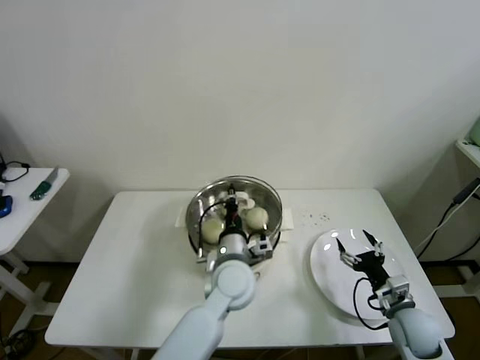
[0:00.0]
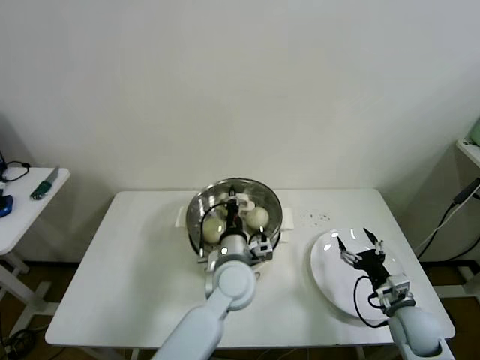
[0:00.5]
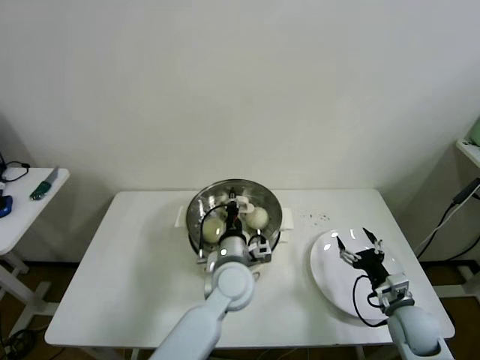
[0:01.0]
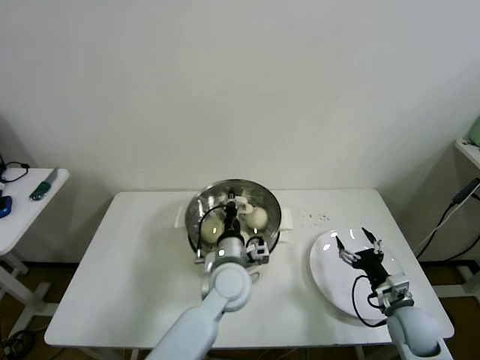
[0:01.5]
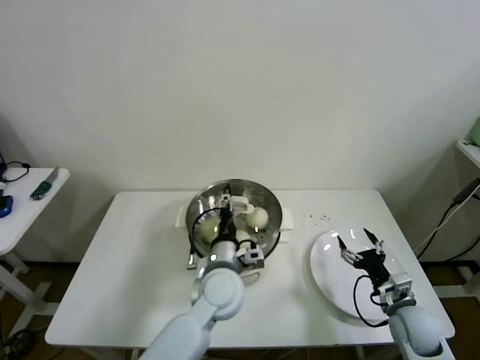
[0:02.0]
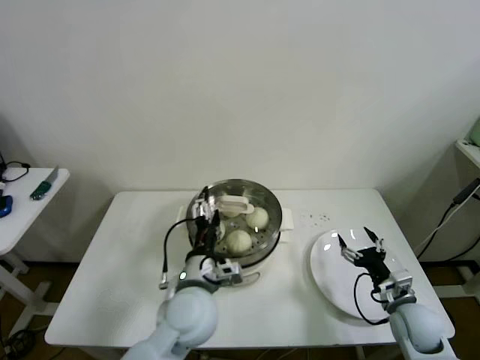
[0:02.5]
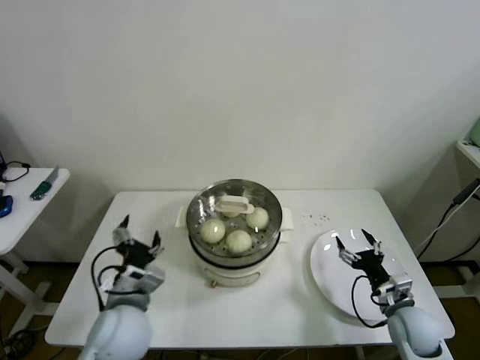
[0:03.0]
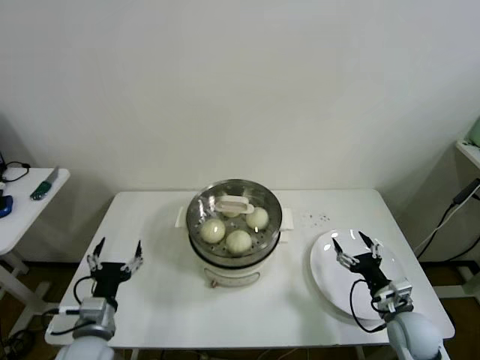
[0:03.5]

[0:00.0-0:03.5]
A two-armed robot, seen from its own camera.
Step, 0:00.0 to 0:02.0: Place the pot lid on the steamer with left gripper.
0:00.0 to 0:02.0: The left gripper opens up.
0:02.0 to 0:03.5: The left gripper moves to the left and backward, roughly 30 cm, and opens.

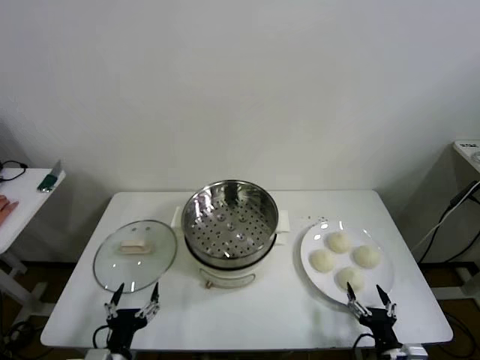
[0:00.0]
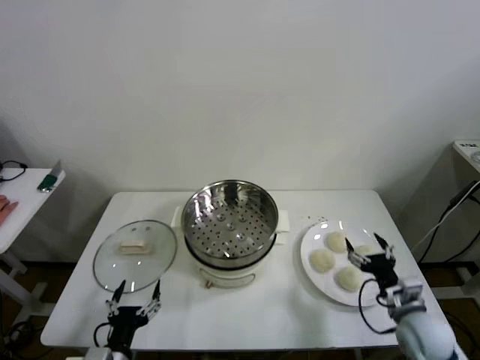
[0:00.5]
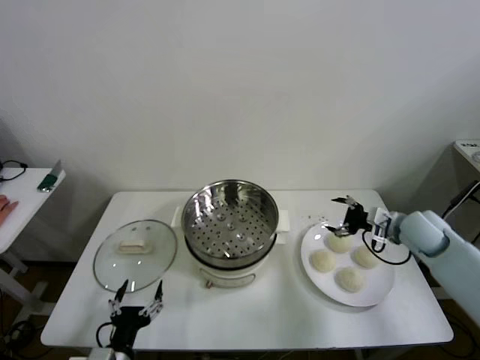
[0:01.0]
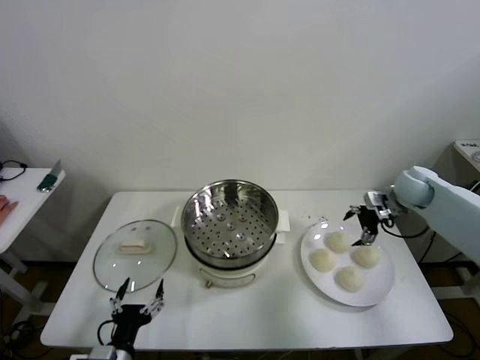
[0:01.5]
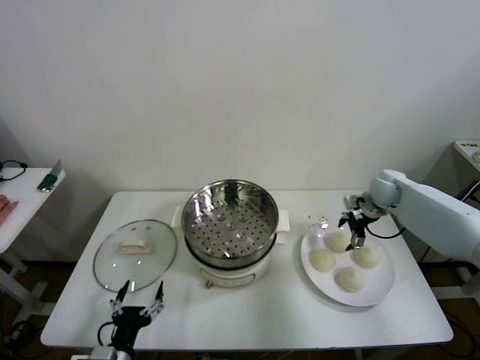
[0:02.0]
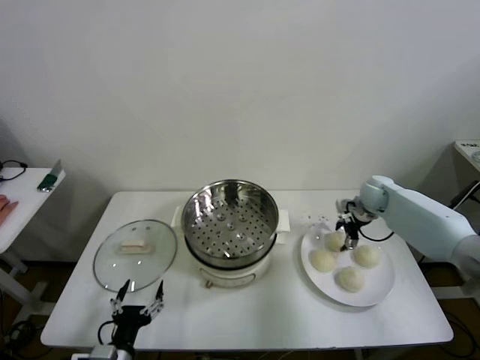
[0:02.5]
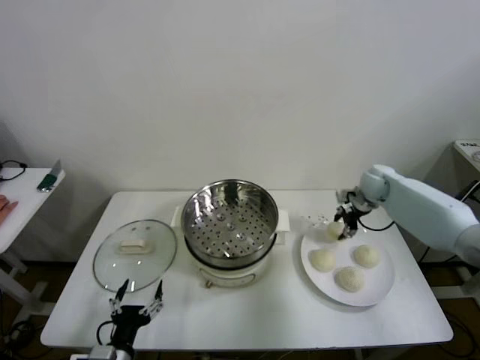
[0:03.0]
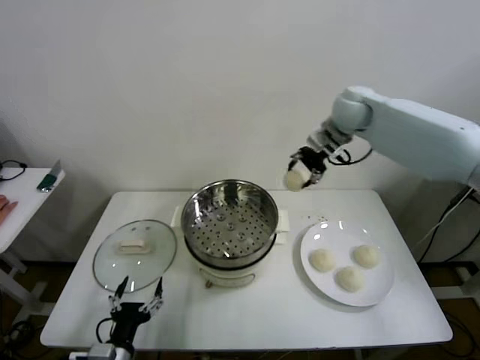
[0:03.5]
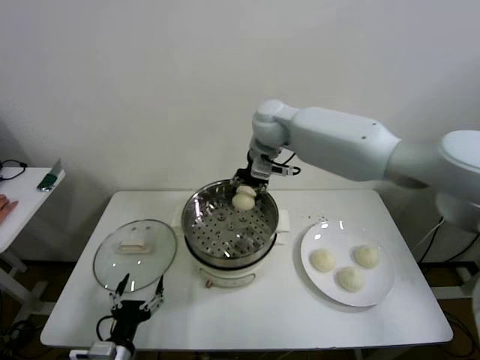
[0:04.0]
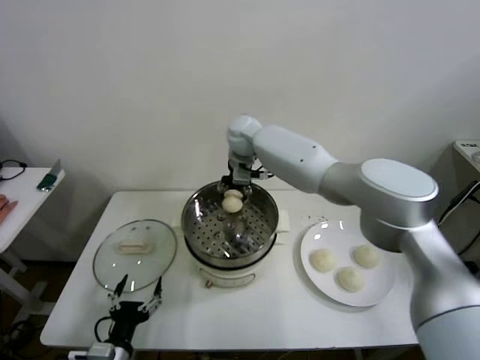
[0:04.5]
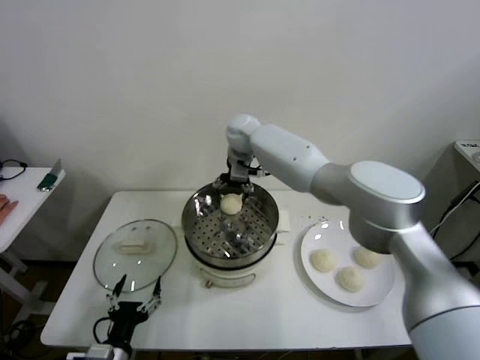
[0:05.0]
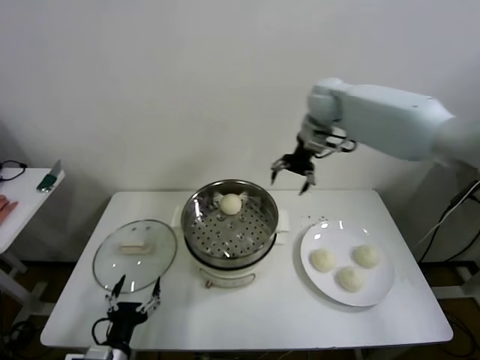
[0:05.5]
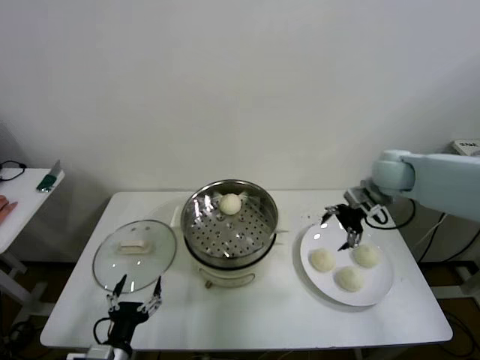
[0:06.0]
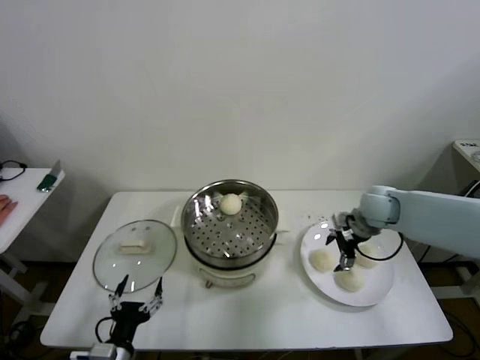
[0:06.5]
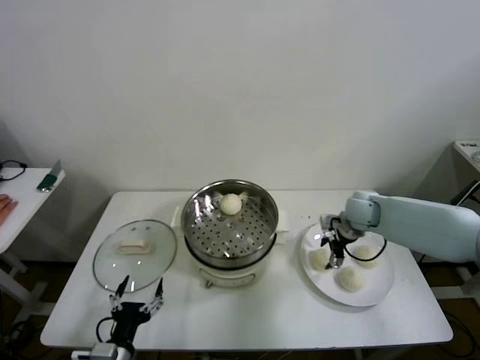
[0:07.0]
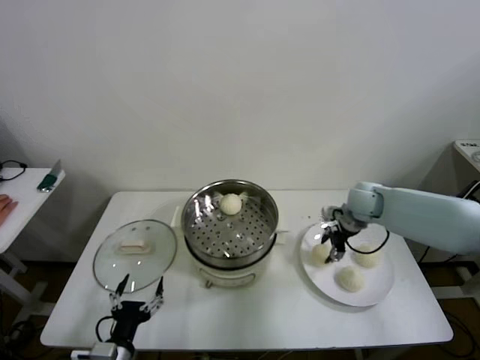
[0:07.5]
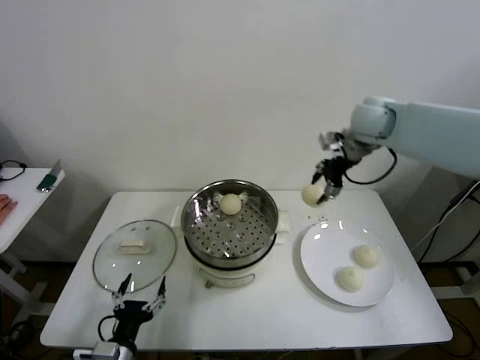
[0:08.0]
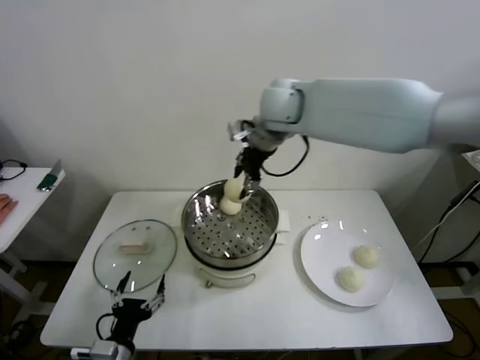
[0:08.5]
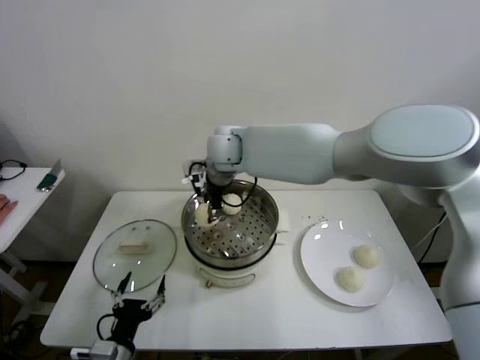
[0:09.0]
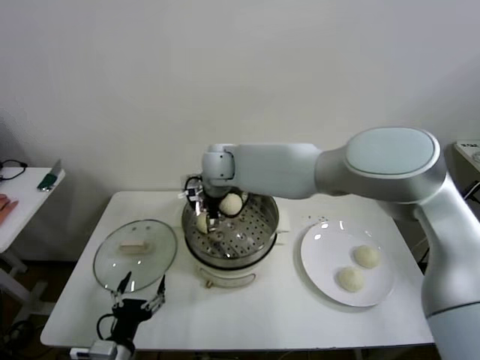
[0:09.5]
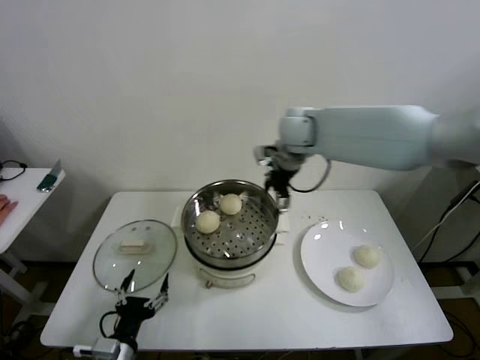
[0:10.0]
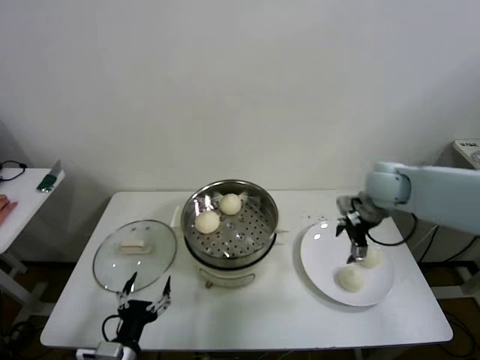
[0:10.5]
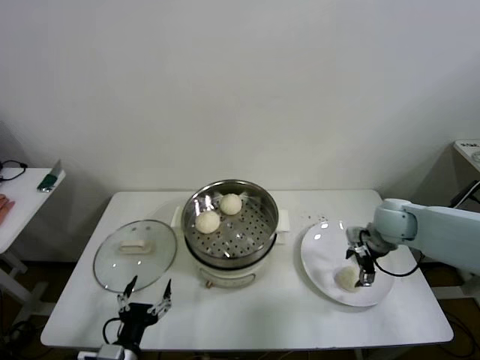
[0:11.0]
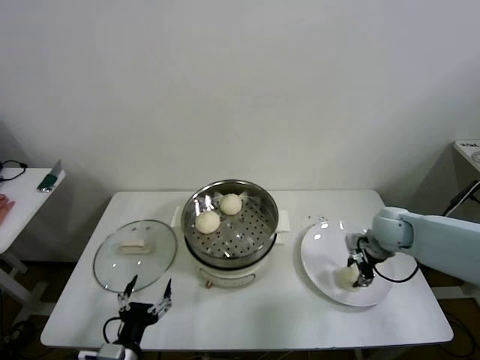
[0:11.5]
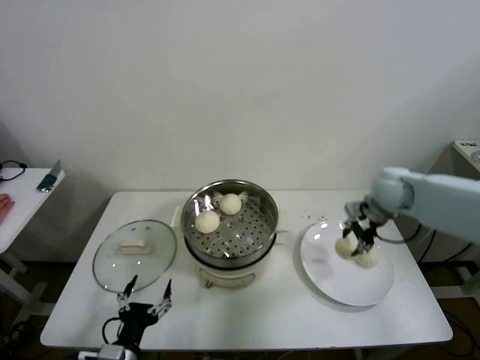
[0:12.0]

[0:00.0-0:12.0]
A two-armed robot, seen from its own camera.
Step, 0:00.0 to 0:02.5: Grasp the baozi in the plate with right gripper.
Step, 0:03.0 to 0:04.5: Place the baozi on the steamer with right gripper.
Step, 0:05.0 to 0:07.0: Grasp the baozi in the plate with right gripper.
Step, 0:07.5 to 0:09.5: Place the baozi on the steamer with right gripper.
Step, 0:10.0 to 0:11.5: Grasp the baozi in the plate with right gripper.
0:02.0 to 0:04.0: The right gripper heads to the left and upward, covering some 40 cm, and closes.
0:04.0 to 0:06.0: The right gripper travels to the right by roughly 30 cm, and opens.
0:06.0 to 0:08.0: The right gripper shifts some 20 cm upward, to the left and forward, and closes up.
0:08.0 to 0:10.0: The right gripper travels downward by approximately 5 cm, moves some 30 cm to the left and comes back, and opens up.
0:10.0 to 0:12.0: The right gripper travels to the right and downward by approximately 20 cm, and closes.

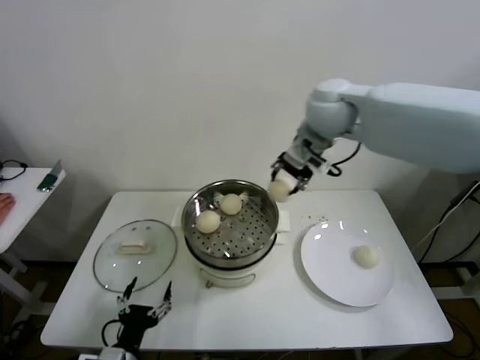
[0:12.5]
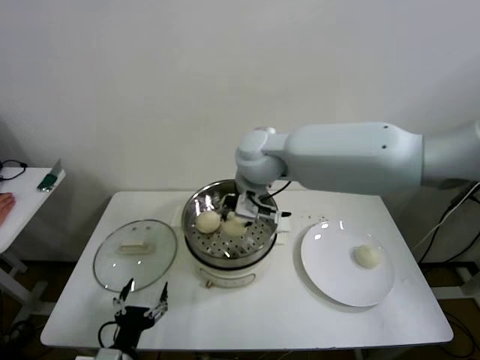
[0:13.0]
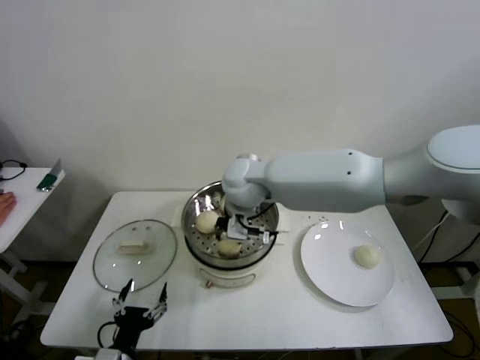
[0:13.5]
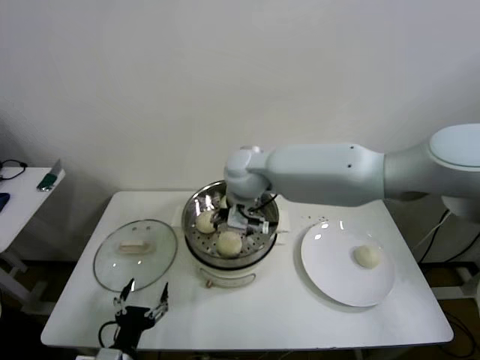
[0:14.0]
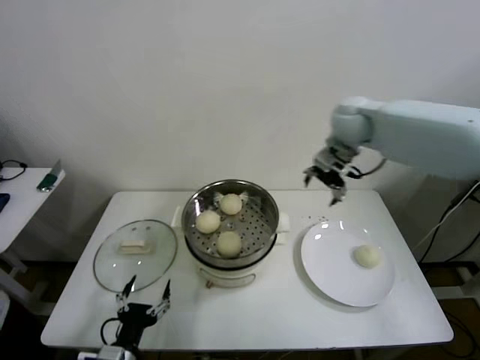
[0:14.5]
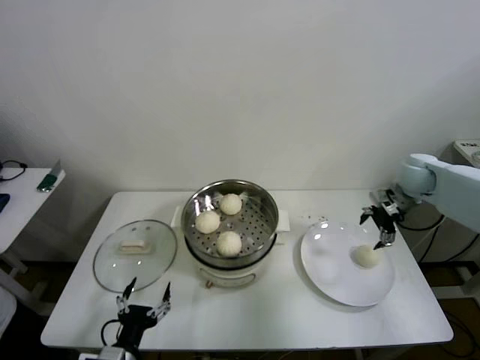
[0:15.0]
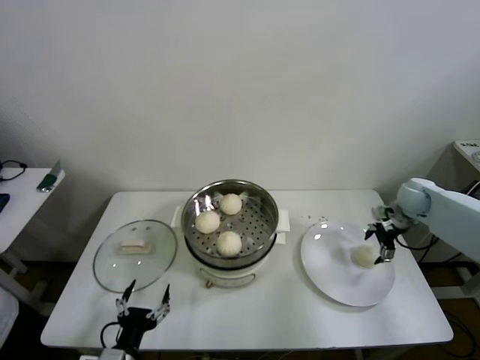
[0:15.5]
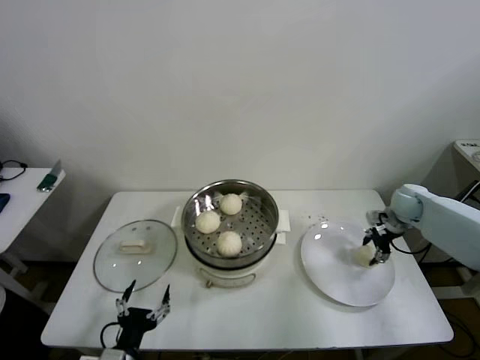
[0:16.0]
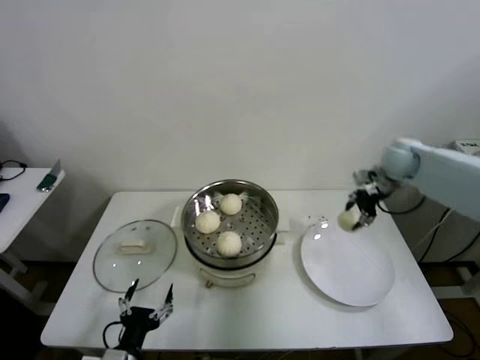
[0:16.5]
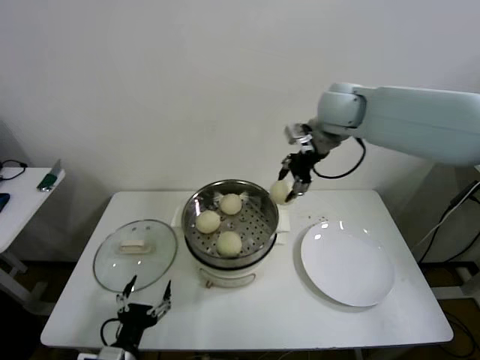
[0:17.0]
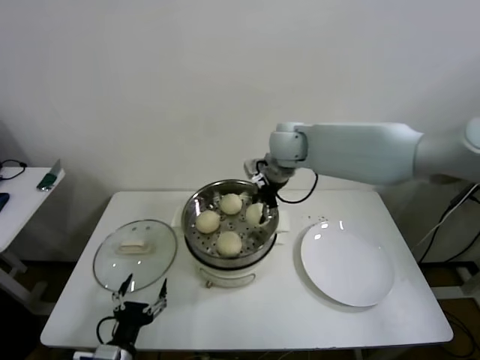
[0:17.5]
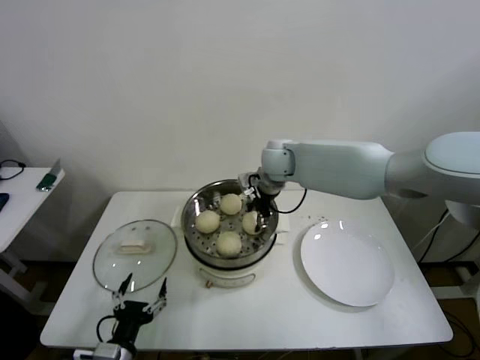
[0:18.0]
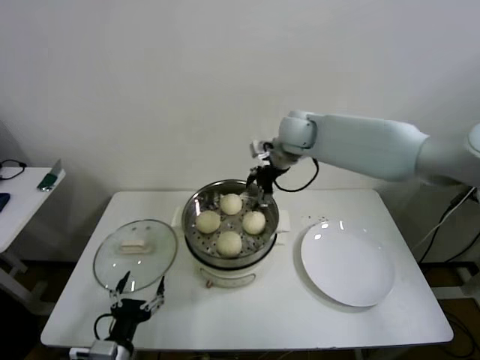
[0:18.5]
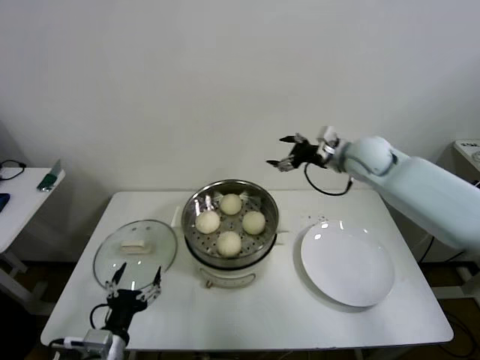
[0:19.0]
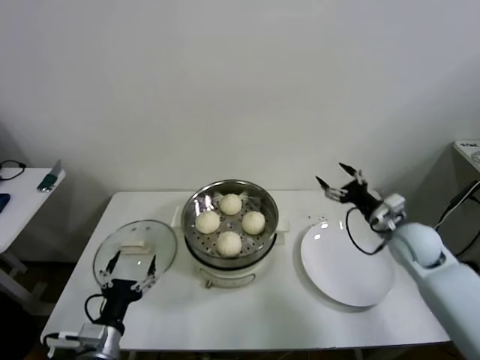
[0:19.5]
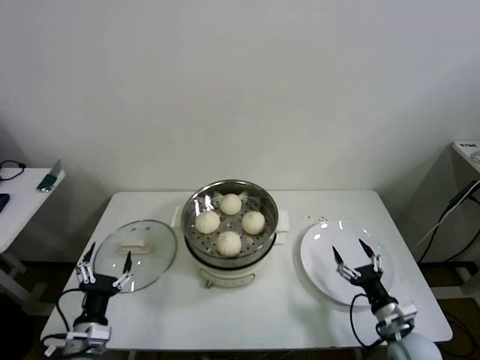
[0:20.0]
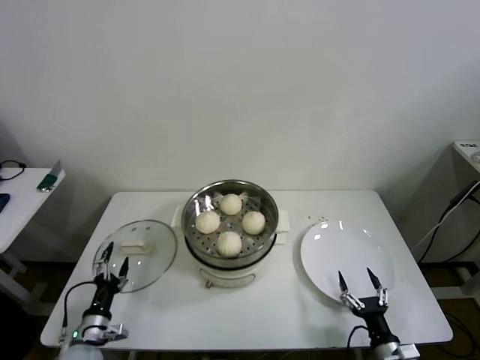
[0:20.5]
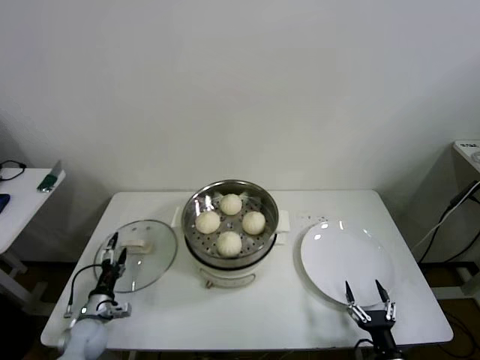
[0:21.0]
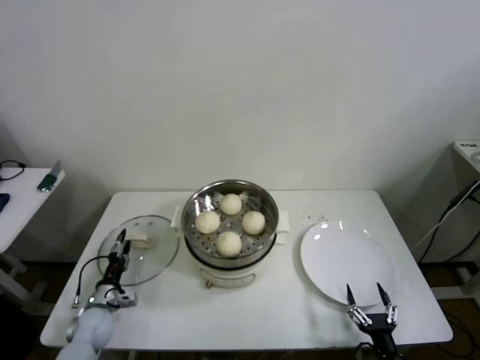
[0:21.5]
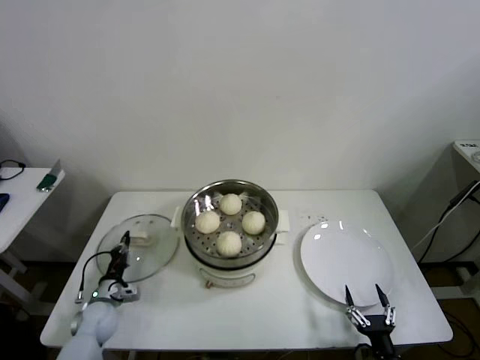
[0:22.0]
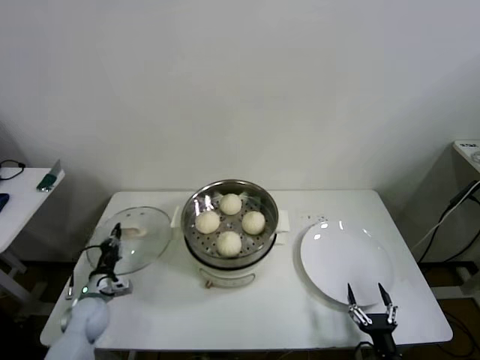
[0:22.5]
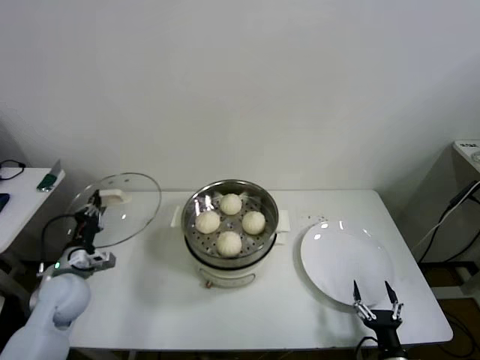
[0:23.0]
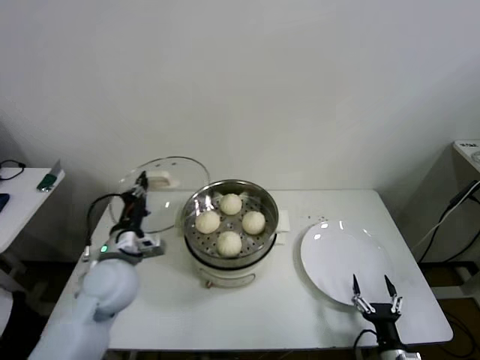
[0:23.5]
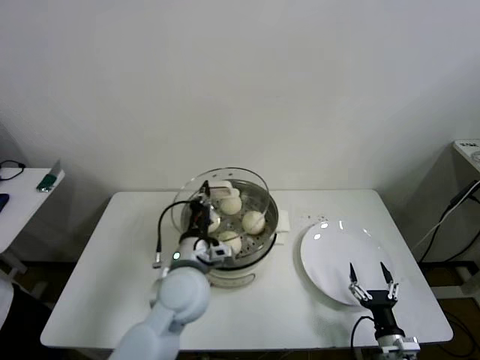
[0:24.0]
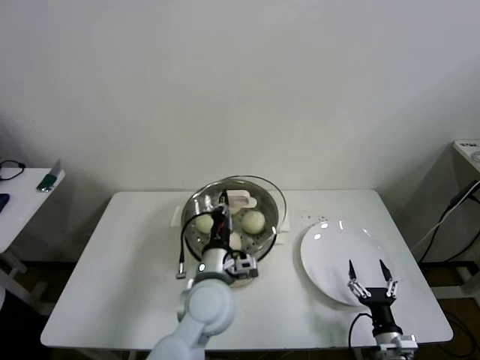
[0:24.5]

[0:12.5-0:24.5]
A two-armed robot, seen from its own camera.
Step, 0:12.5 to 0:13.5: Place the baozi on the steamer with right gripper.
Step, 0:14.0 to 0:15.5: Grasp the baozi in the plate with right gripper.
Step, 0:16.0 to 0:18.0: Place the baozi on the steamer with right gripper.
Step, 0:18.5 to 0:21.5: Grasp the baozi in the plate with right gripper.
0:12.5 to 0:14.5: The right gripper is displaced to the right, downward and forward by approximately 15 cm, and opens up.
0:14.5 to 0:16.5: The right gripper heads to the right and downward, covering some 15 cm, and closes its fingers.
0:16.5 to 0:18.5: The right gripper moves to the left, approximately 25 cm, and opens its fingers.
0:18.5 to 0:20.5: The right gripper shifts roughly 60 cm backward, downward and to the right. Meanwhile the left gripper goes roughly 15 cm to the left, downward and forward.
0:20.5 to 0:22.5: The left gripper goes approximately 10 cm forward, and closes its fingers.
0:22.5 to 0:24.5: The right gripper heads forward, covering approximately 5 cm. Meanwhile the left gripper is displaced to the right and upward by some 40 cm.
